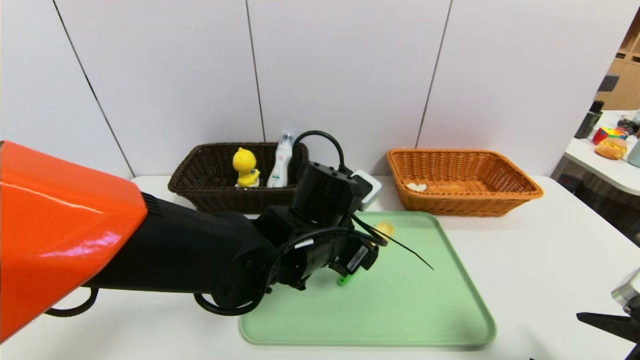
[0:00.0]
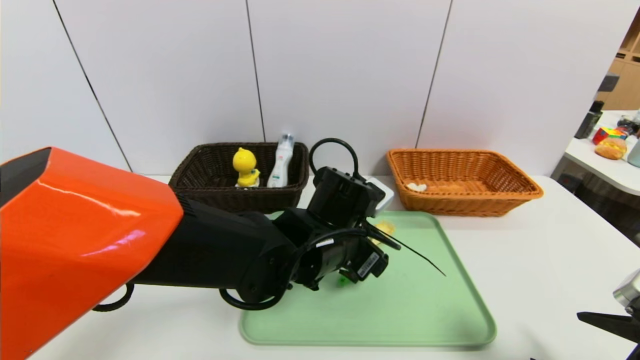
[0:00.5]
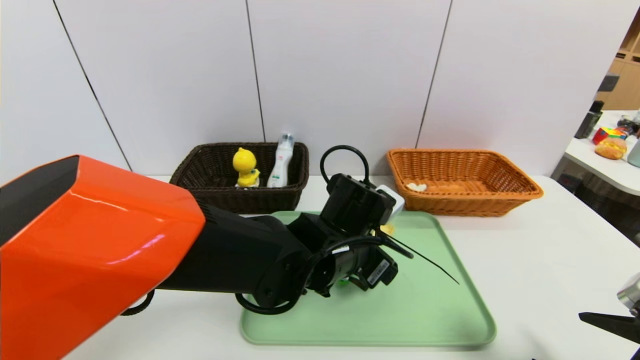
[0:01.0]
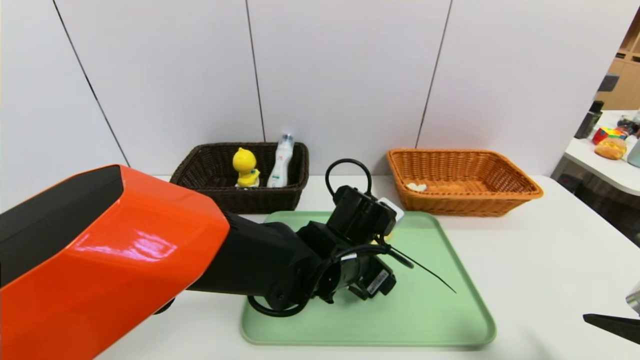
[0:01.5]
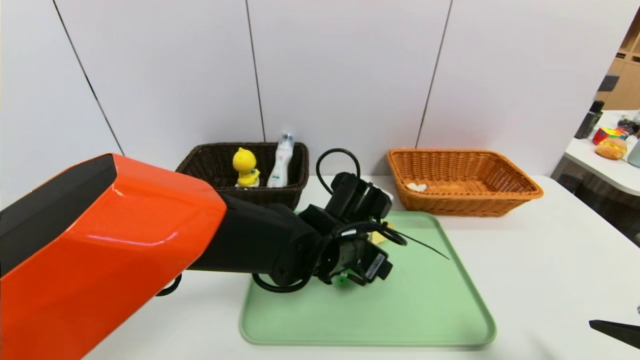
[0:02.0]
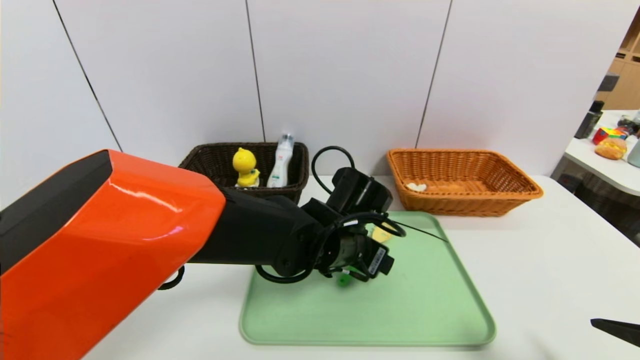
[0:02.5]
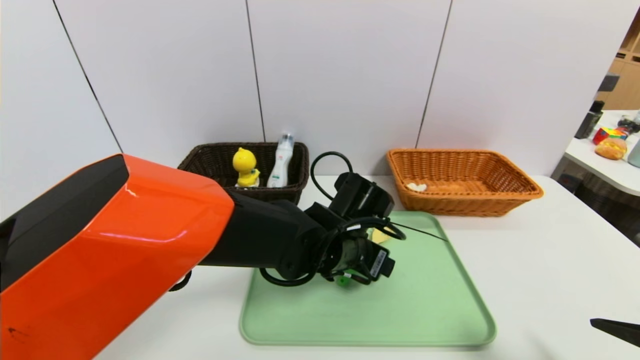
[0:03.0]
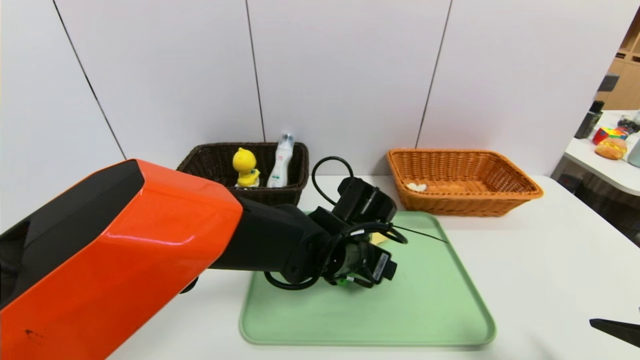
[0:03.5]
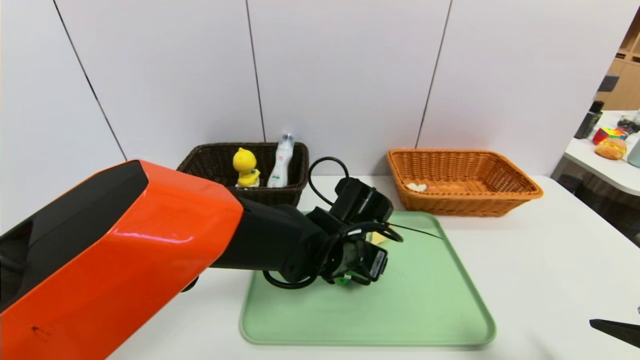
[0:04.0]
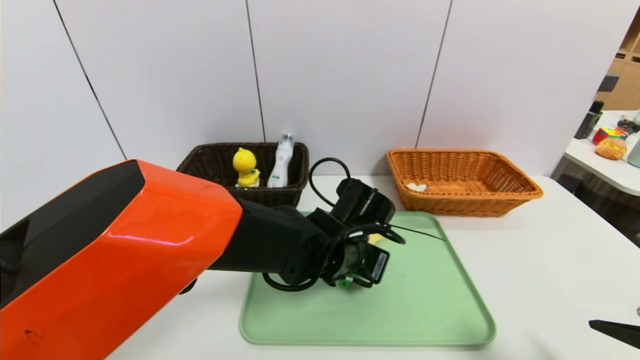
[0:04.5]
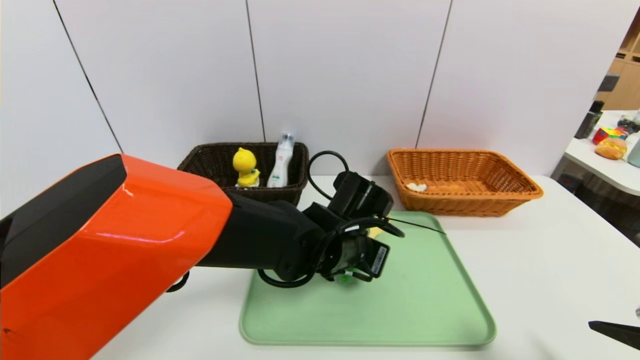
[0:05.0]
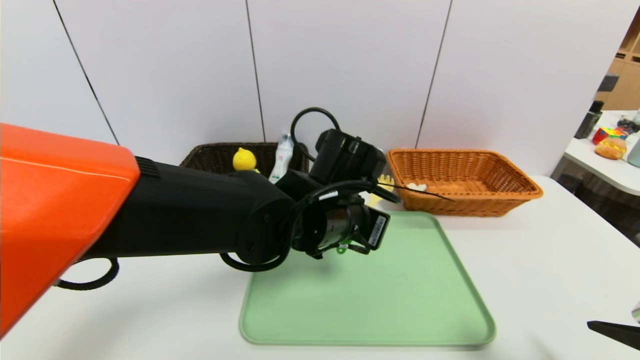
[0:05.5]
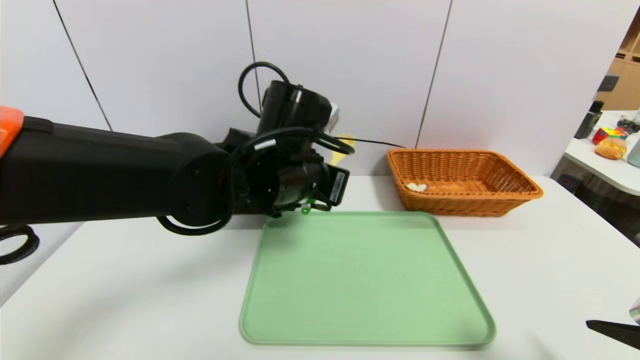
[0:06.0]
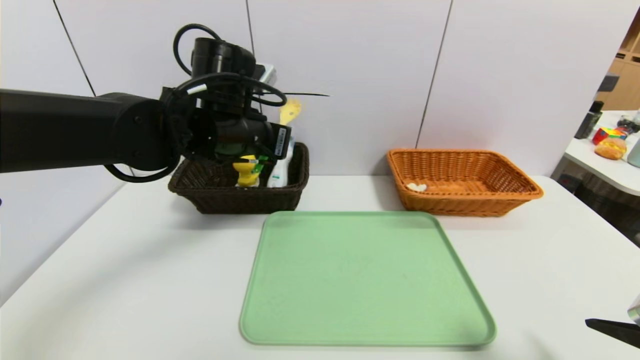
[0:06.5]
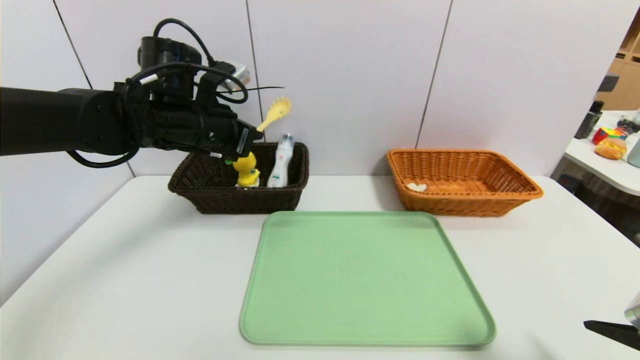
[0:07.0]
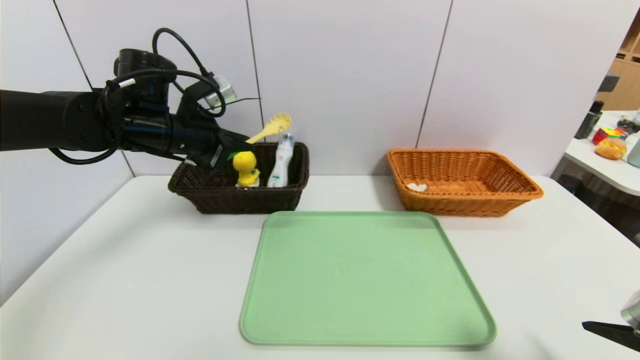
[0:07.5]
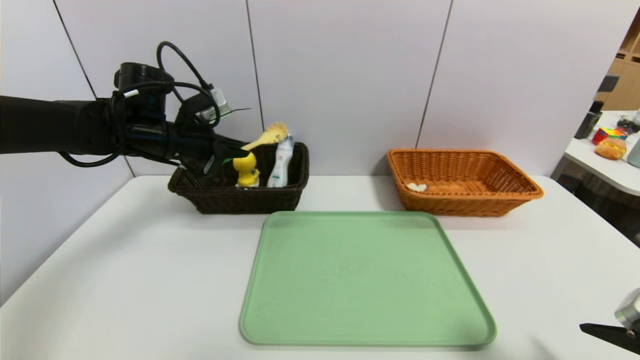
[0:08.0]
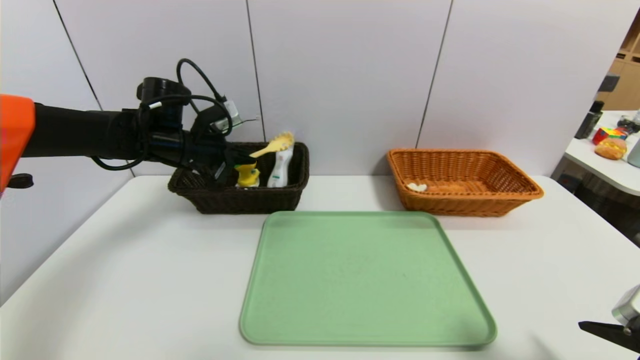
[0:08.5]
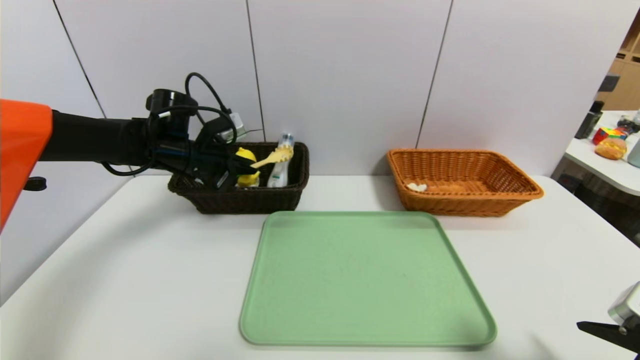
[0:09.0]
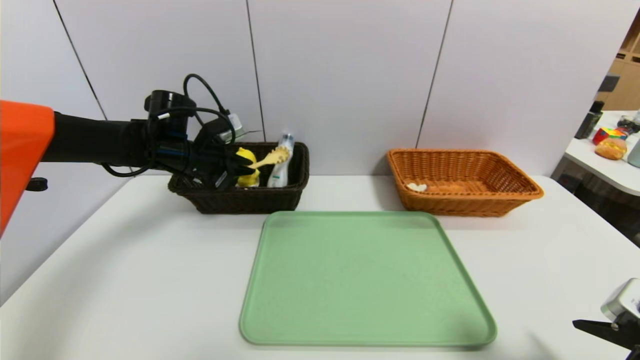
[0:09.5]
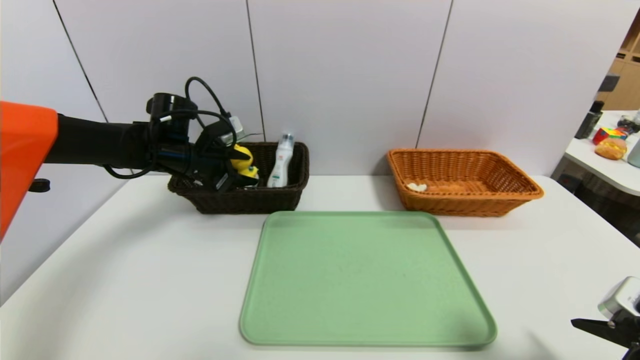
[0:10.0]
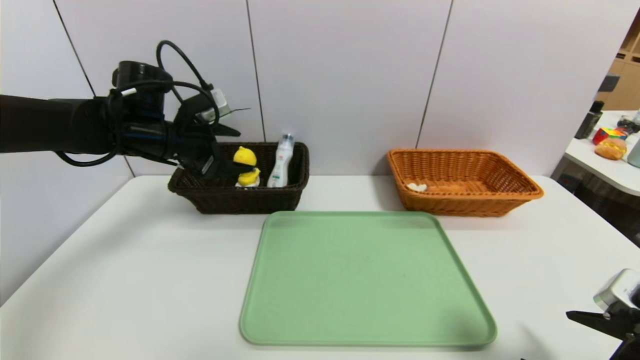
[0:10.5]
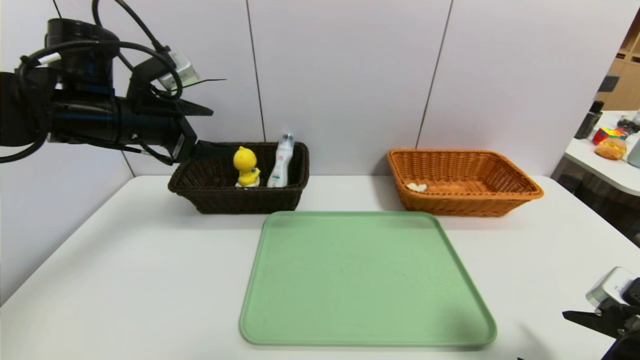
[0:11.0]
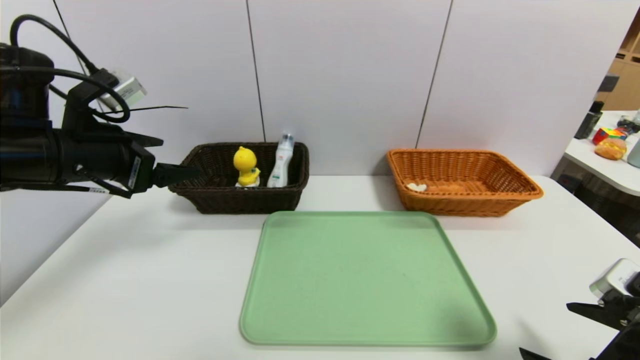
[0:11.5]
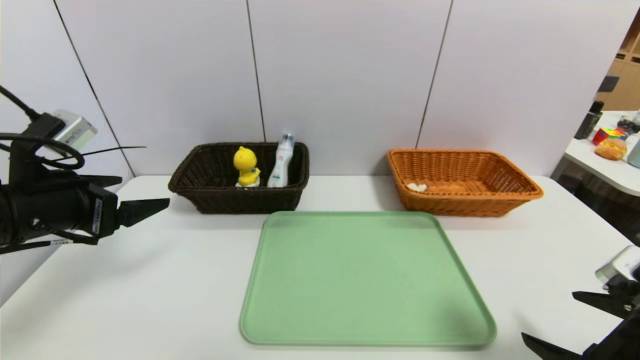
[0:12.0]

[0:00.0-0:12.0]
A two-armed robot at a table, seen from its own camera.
Task of the whole recording: place the food in the right basket with the right gripper, and place the non food items in the left basket with the left gripper.
Step, 0:00.0 to 0:10.5: Grasp the back scratcher and put it in the left basket.
0:00.0 to 0:02.0: The grippers stay close to where they were, moving slightly.
0:02.0 to 0:04.0: The grippers make only small movements.
0:04.0 to 0:06.0: The left gripper moves upward and to the left, roughly 15 cm, and closes its fingers.
0:06.0 to 0:08.0: The left gripper travels to the left and forward by about 20 cm.
0:08.0 to 0:10.0: The left gripper shifts by roughly 5 cm, and opens.
0:10.0 to 0:12.0: The left gripper is displaced backward by roughly 20 cm.

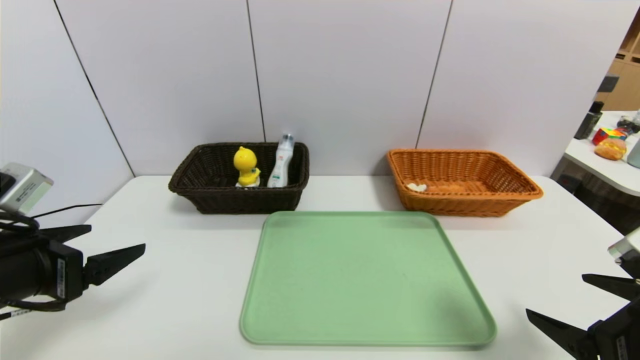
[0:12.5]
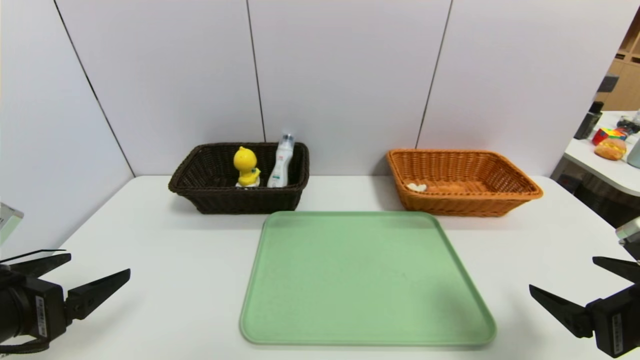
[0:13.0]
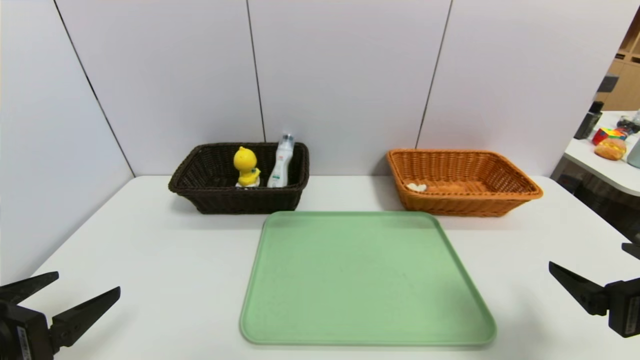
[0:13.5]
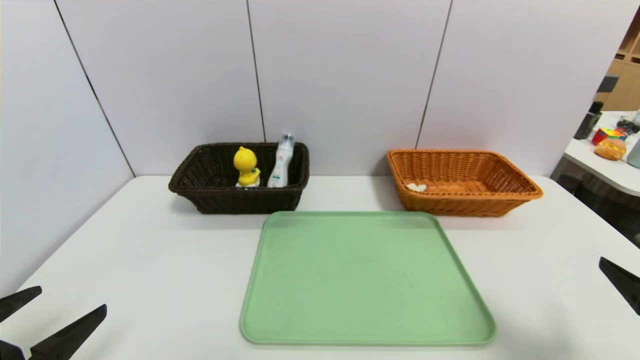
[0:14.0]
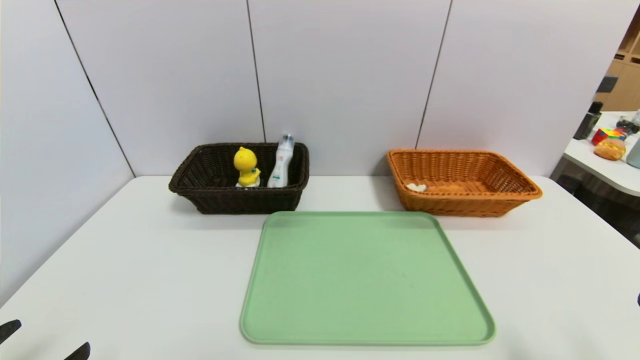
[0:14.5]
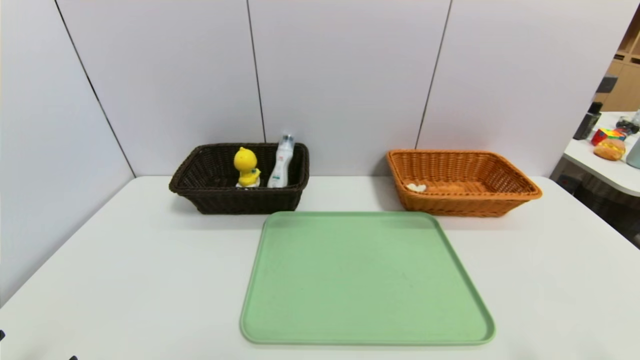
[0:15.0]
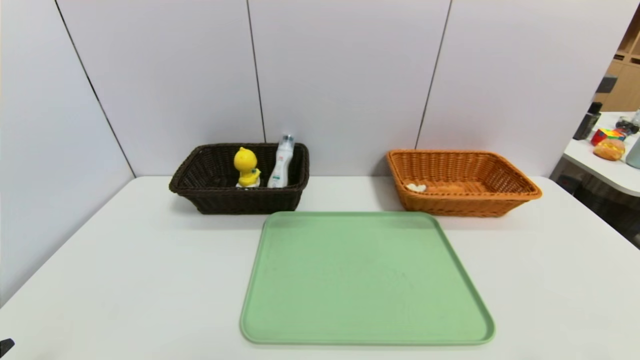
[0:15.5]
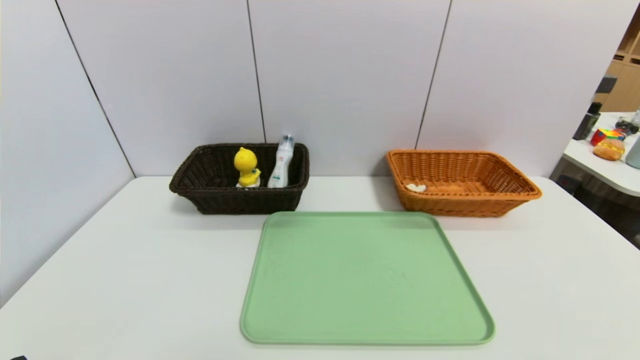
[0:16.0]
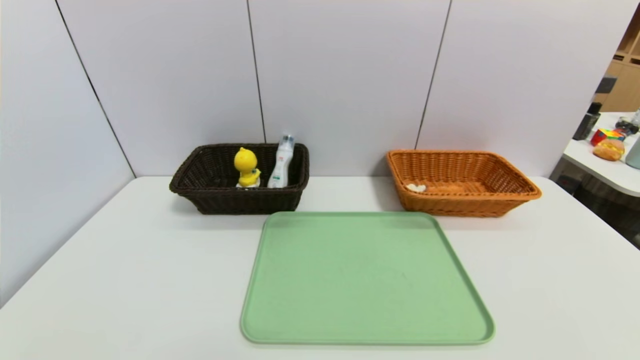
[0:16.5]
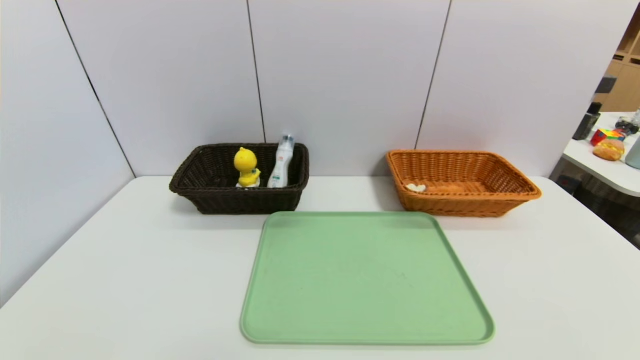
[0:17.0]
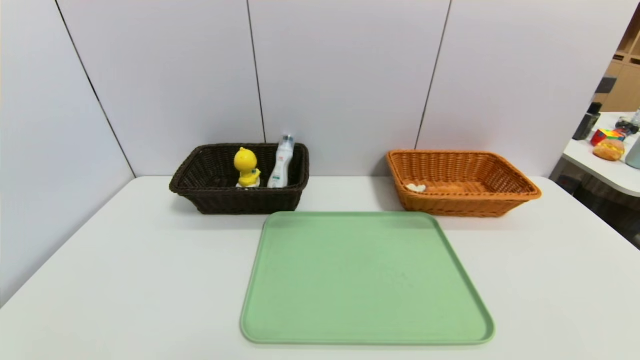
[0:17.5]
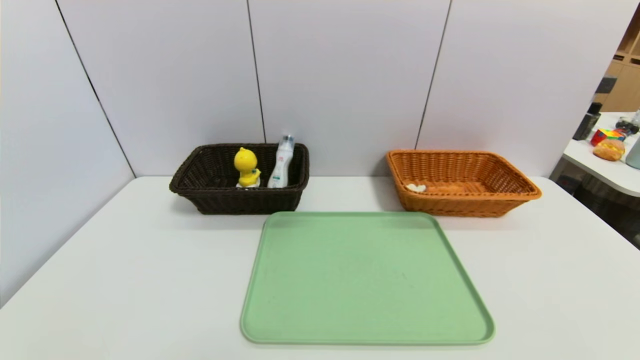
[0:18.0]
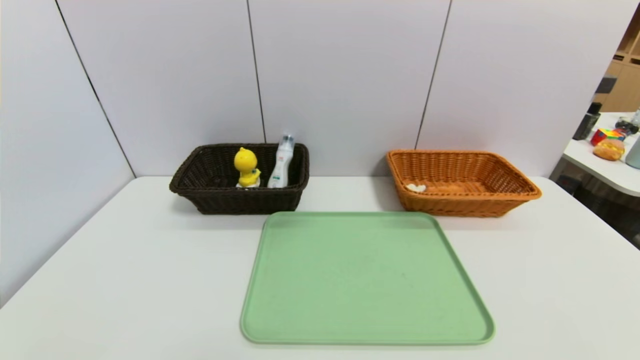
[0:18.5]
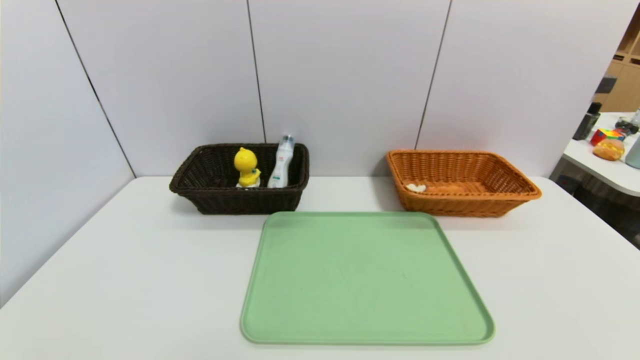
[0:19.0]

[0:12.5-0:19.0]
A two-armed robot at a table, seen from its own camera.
Task of the whole recording: place the food in the right basket with the right gripper, and place the non food items in the left basket with the left gripper.
0:12.5 to 0:14.5: The left gripper heads backward and downward, covering about 15 cm, while the right gripper shifts about 5 cm backward.

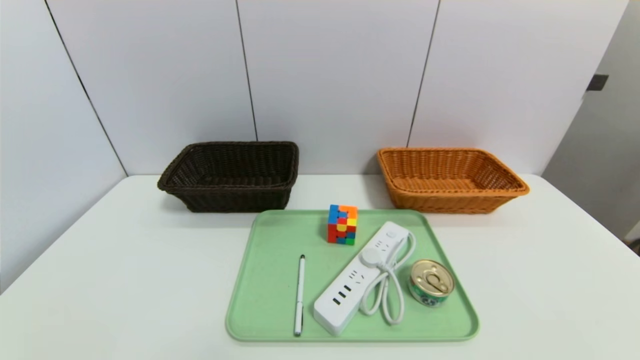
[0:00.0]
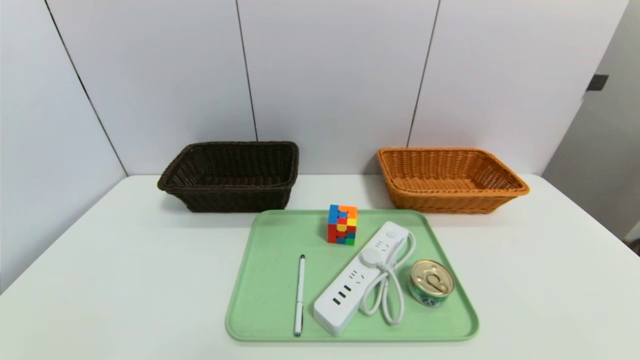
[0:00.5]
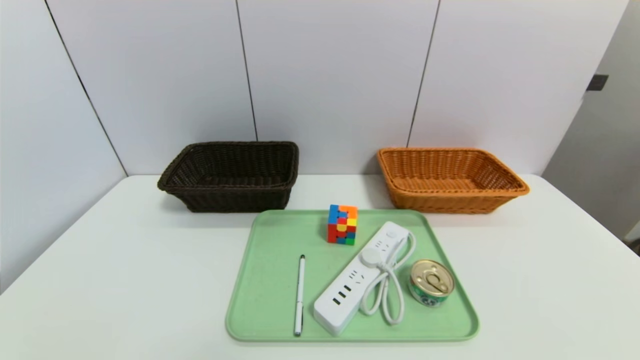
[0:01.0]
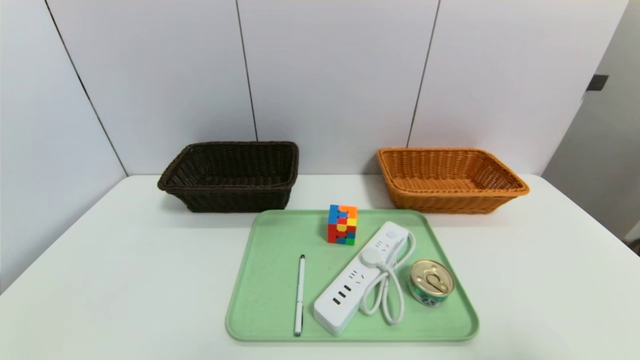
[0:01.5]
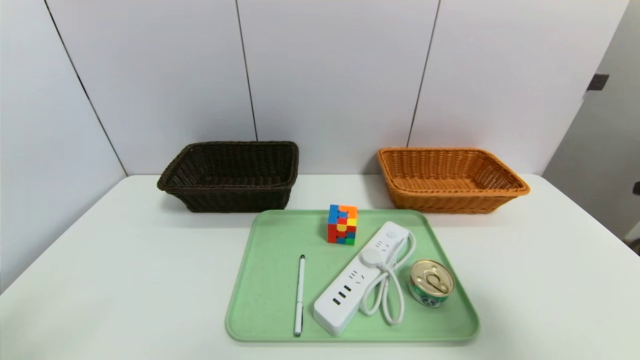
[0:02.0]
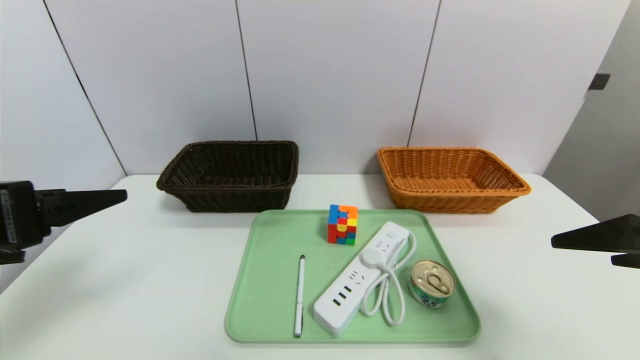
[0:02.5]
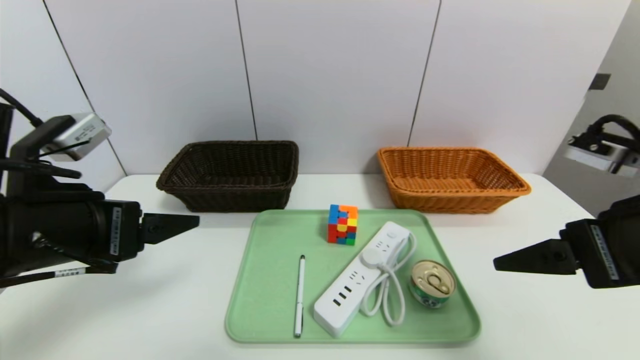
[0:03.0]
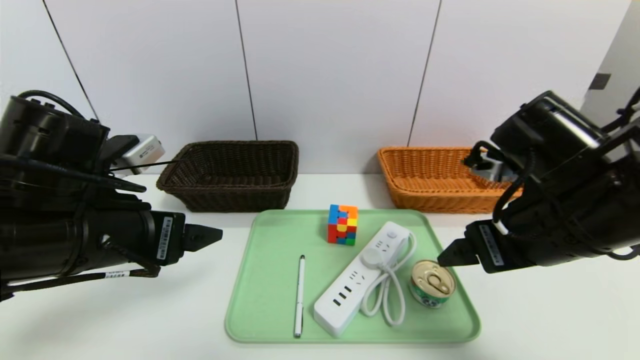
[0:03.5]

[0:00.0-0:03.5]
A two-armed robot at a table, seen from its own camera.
Task of the whole recording: place the food in the right basket with the right gripper, and place the non food items in the left basket with the left gripper.
0:00.0 to 0:02.0: The right gripper travels upward and forward by approximately 25 cm.
0:02.0 to 0:03.5: The right gripper is displaced forward, to the left and downward by roughly 20 cm; the left gripper heads forward and to the right, covering approximately 20 cm.
